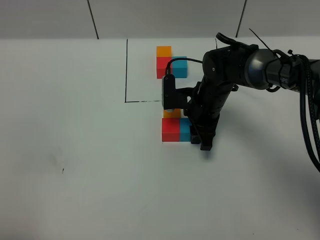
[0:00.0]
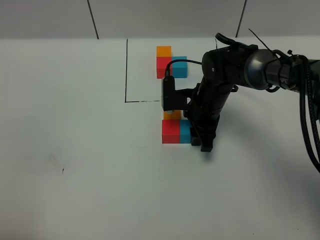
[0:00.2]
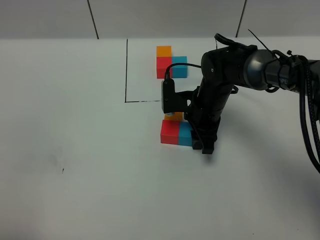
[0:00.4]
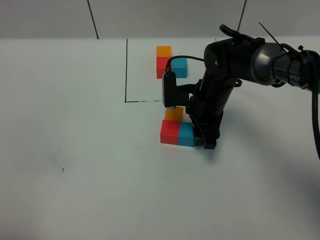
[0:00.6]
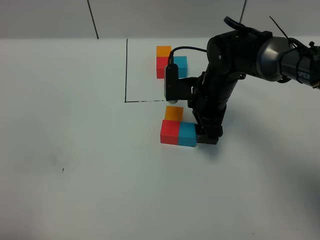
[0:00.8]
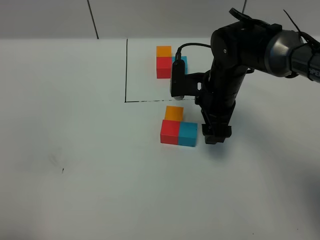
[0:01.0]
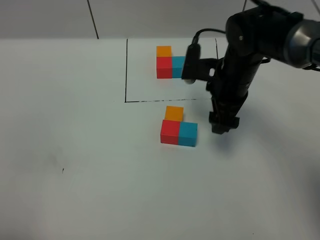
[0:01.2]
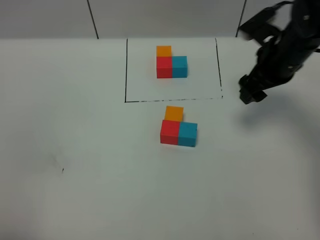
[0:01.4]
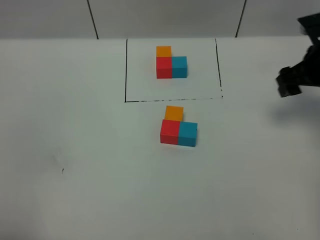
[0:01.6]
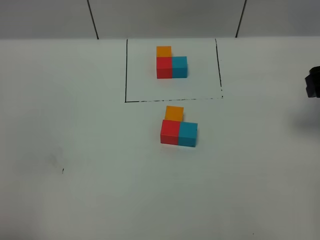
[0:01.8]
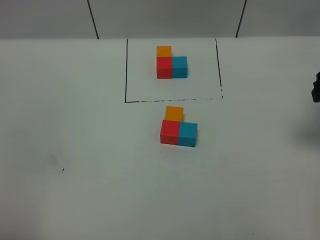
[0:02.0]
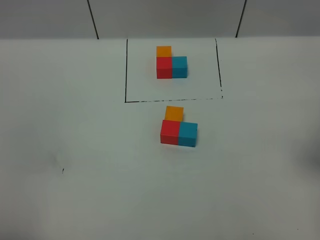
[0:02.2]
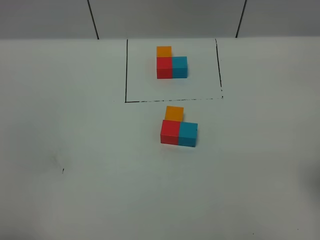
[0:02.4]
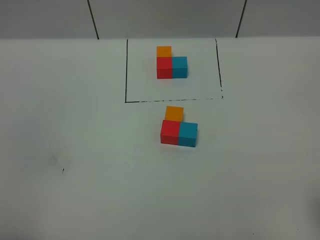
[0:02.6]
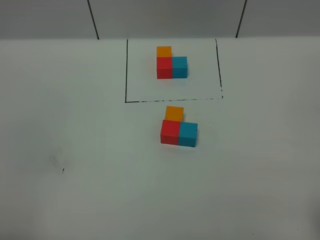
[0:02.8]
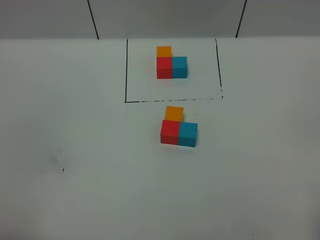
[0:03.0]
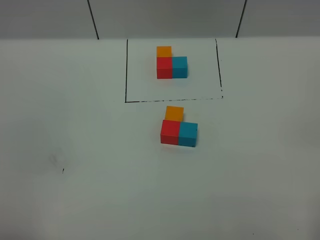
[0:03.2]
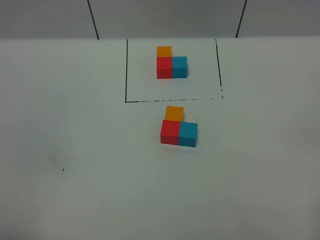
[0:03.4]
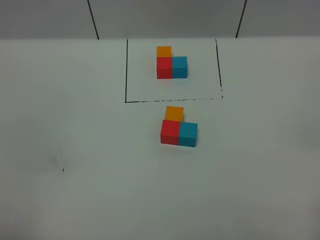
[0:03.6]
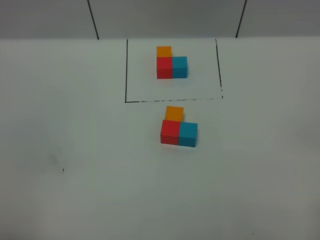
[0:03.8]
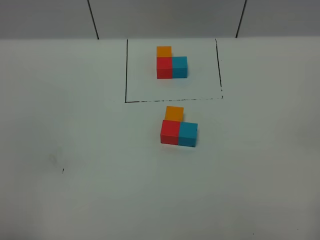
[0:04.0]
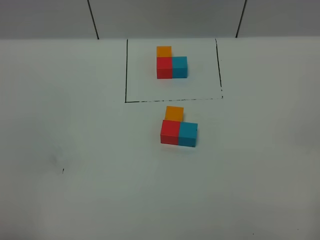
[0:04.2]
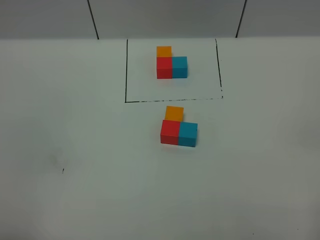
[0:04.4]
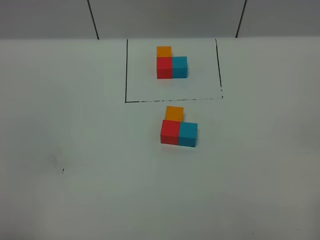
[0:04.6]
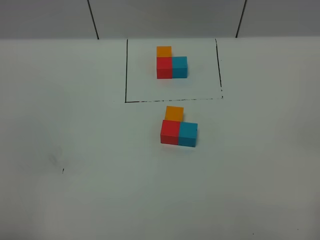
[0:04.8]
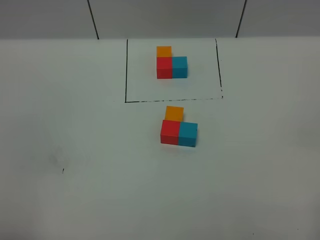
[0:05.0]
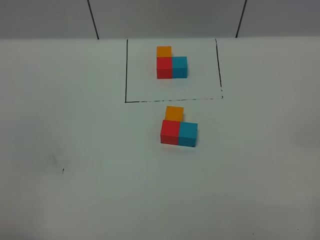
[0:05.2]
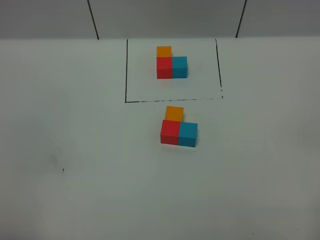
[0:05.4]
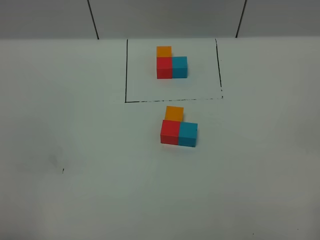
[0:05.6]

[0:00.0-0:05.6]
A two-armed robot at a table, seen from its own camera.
Task of the whole recording: According to the building block template in front, assemble the scattered blocks together.
0:00.0 to 0:01.4: The right gripper is displaced to the right and upward by about 20 cm, and opens.
0:01.4 to 0:02.8: The right gripper moves backward, some 30 cm.
0:04.2 to 0:05.6: Both grippers stay about where they are.
